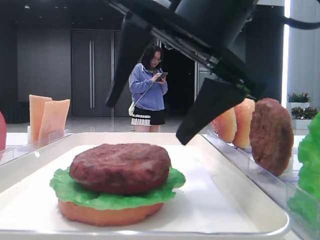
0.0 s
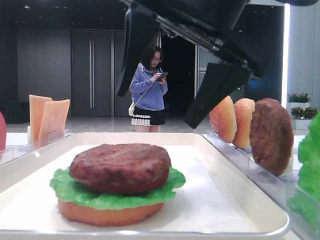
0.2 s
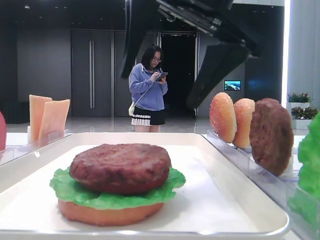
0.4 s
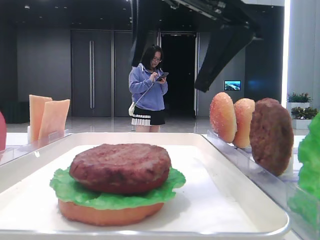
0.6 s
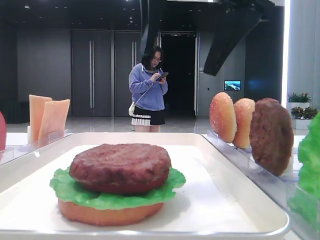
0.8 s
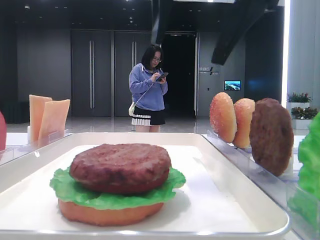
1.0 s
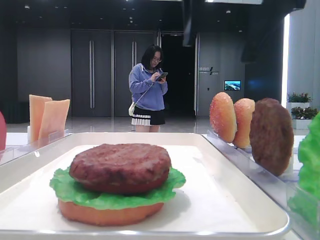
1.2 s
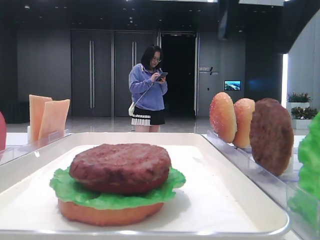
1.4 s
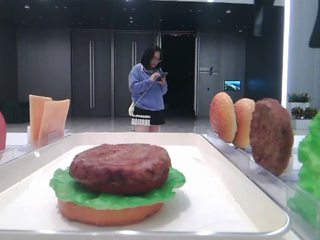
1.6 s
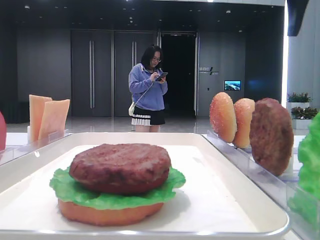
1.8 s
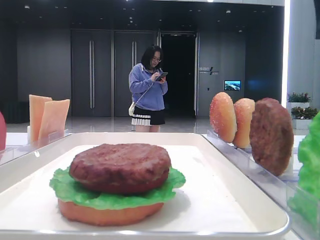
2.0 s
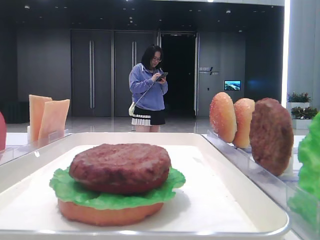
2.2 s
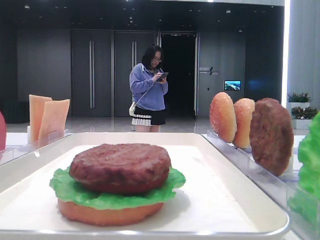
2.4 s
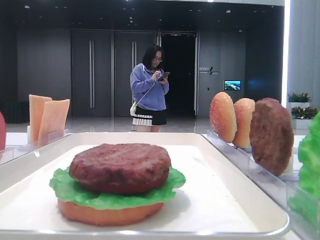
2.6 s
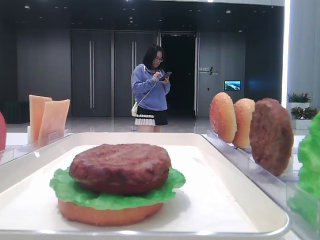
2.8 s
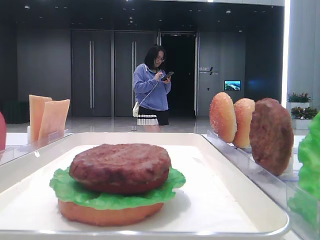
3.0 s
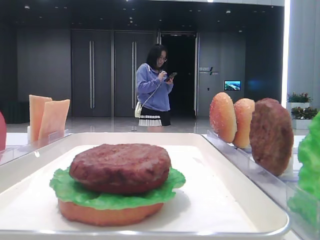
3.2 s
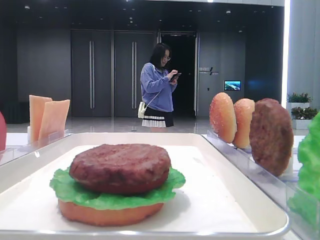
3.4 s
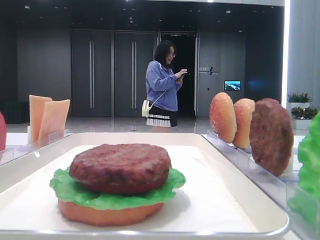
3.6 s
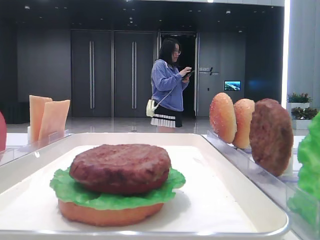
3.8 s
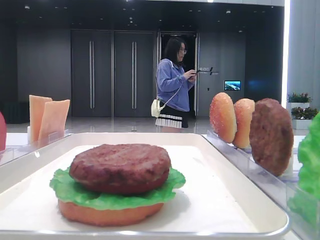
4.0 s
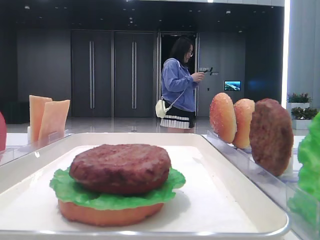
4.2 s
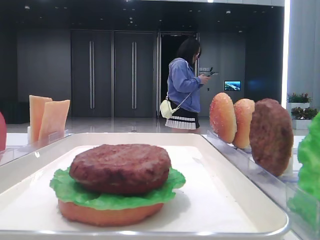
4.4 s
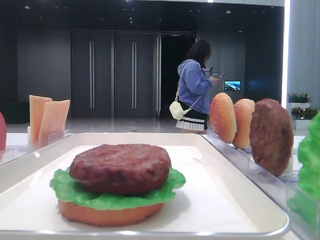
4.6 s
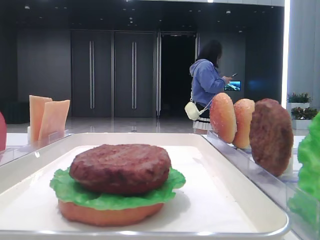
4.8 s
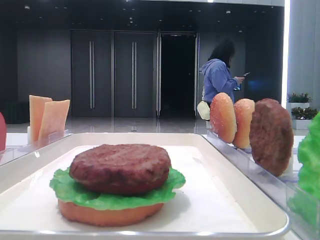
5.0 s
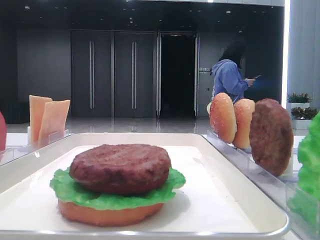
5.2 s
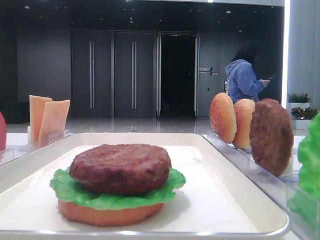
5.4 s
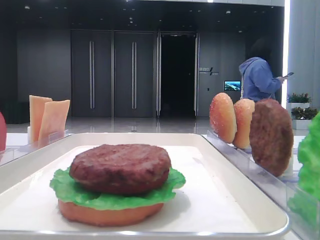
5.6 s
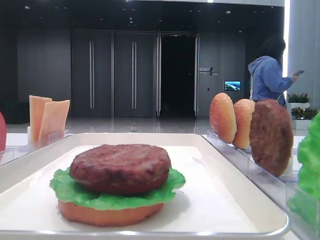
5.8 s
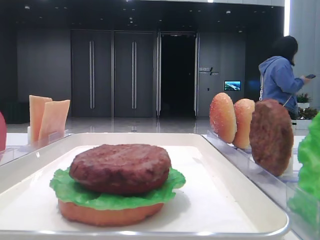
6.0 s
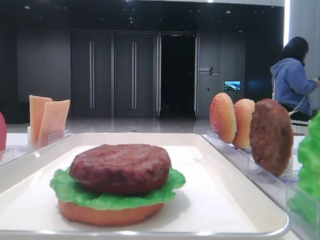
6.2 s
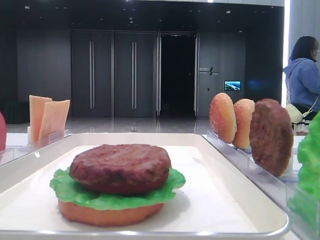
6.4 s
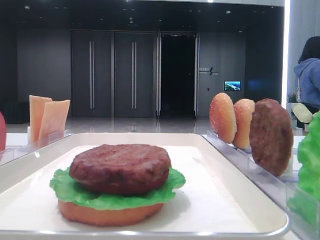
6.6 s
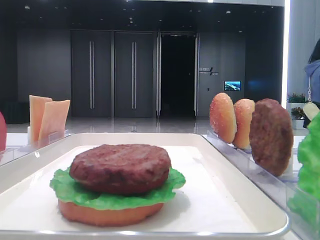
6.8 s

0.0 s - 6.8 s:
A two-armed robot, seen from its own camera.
0.0 s - 1.4 s: The right gripper moves upward, to the right and forward, roughly 15 cm.
1.4 s - 2.8 s: The right gripper heads to the right, covering about 15 cm.
2.8 s - 4.0 s: The right gripper moves backward, some 20 cm.
4.0 s - 5.4 s: The right gripper shifts roughly 10 cm backward and downward.
5.4 s - 6.8 s: The grippers move only a little.
